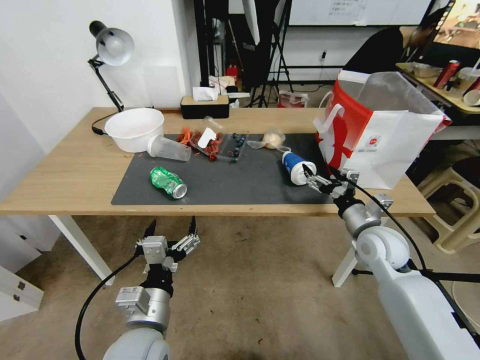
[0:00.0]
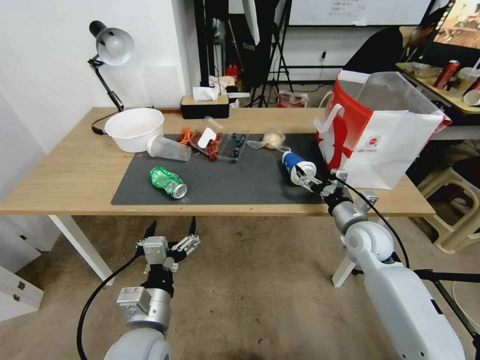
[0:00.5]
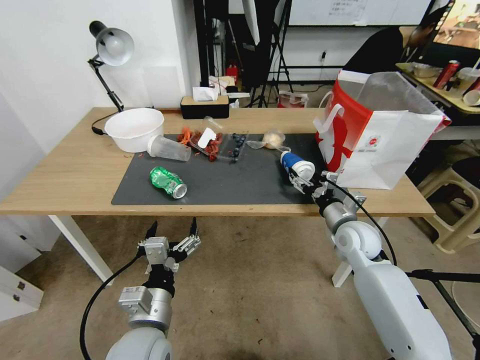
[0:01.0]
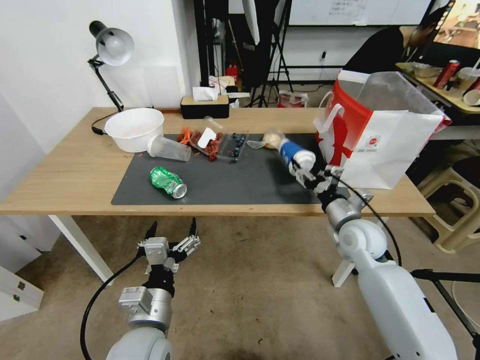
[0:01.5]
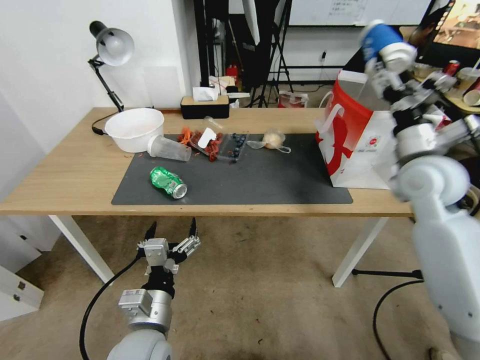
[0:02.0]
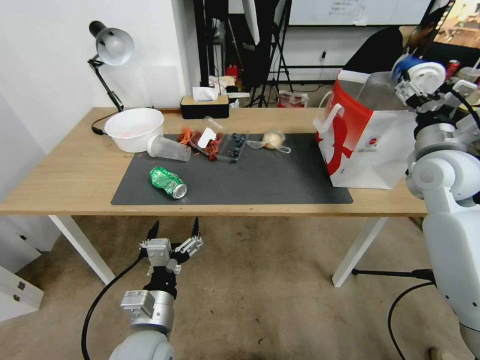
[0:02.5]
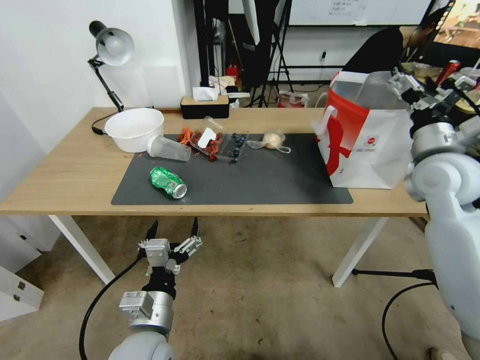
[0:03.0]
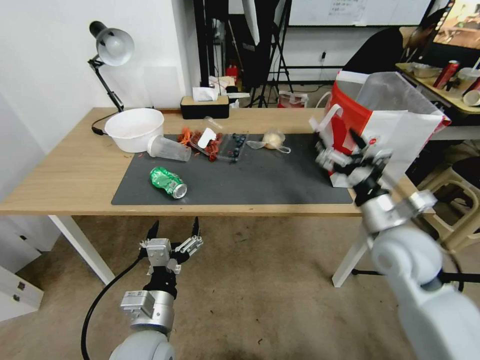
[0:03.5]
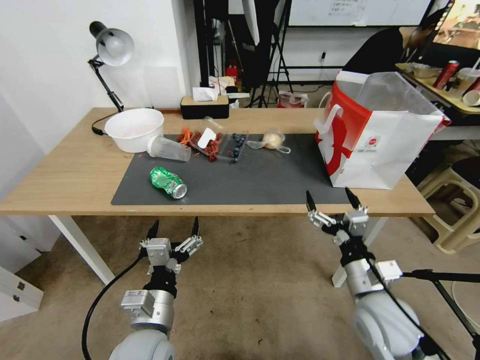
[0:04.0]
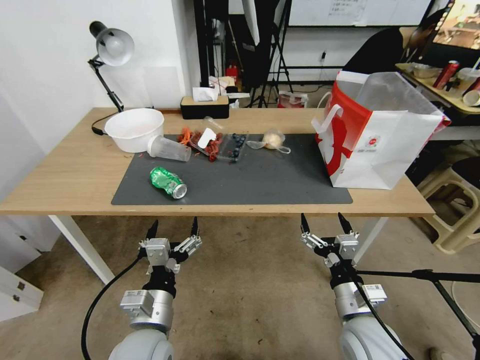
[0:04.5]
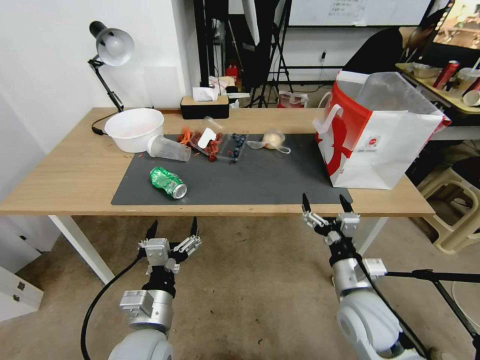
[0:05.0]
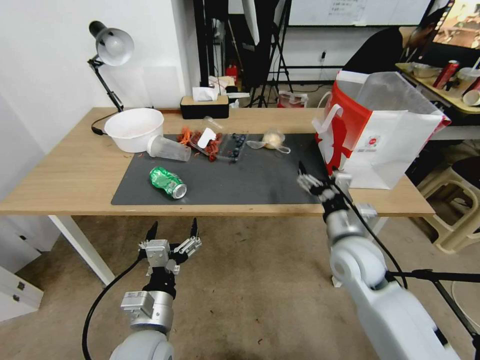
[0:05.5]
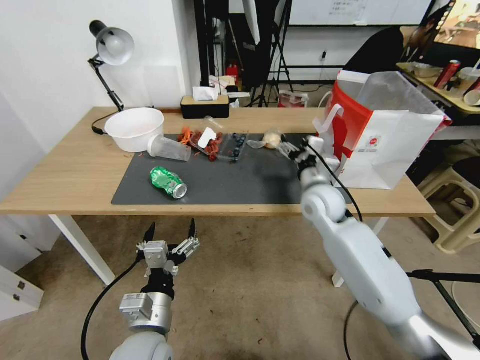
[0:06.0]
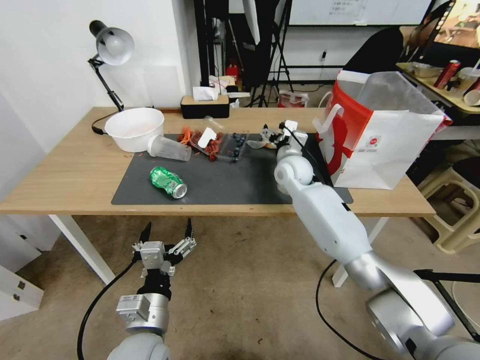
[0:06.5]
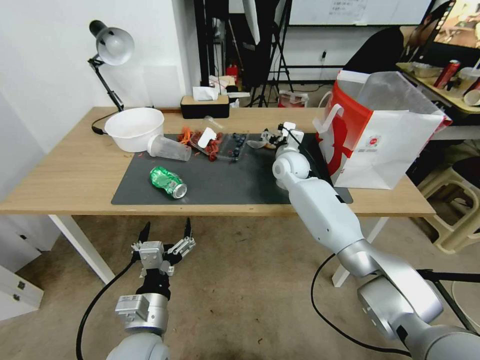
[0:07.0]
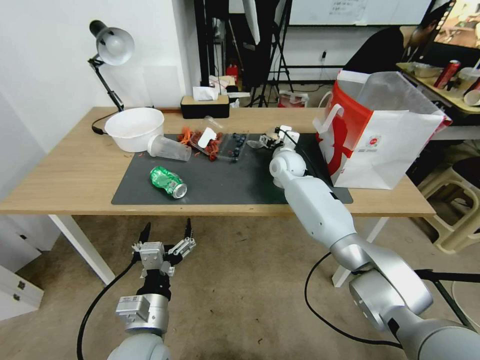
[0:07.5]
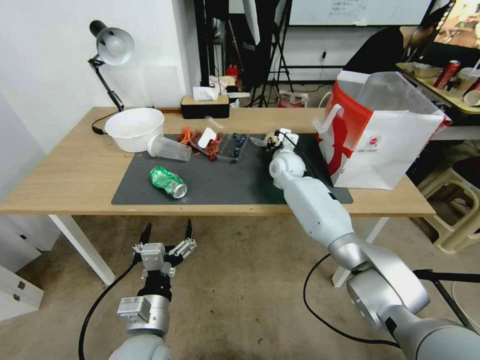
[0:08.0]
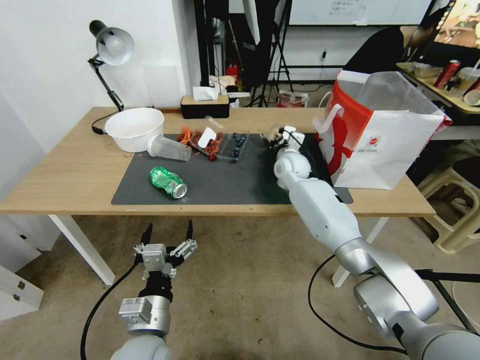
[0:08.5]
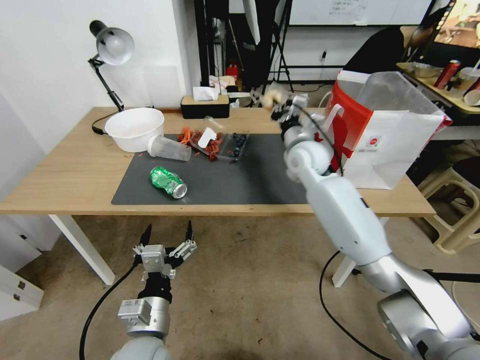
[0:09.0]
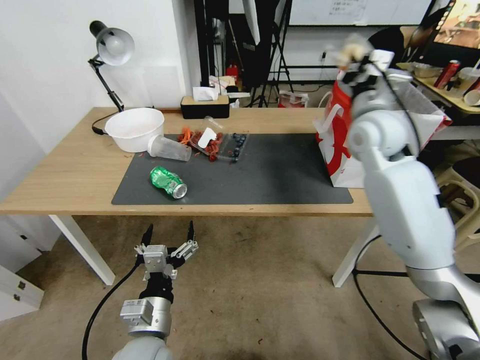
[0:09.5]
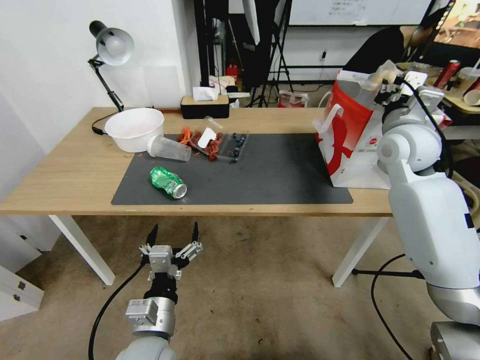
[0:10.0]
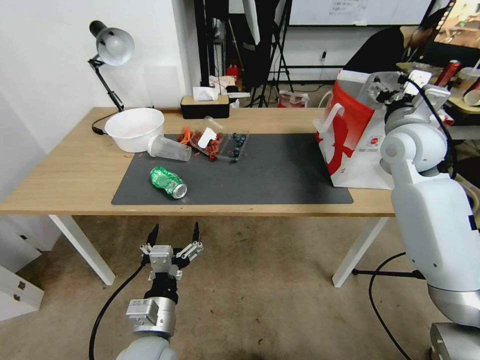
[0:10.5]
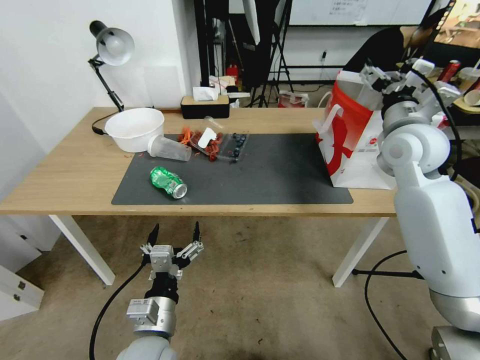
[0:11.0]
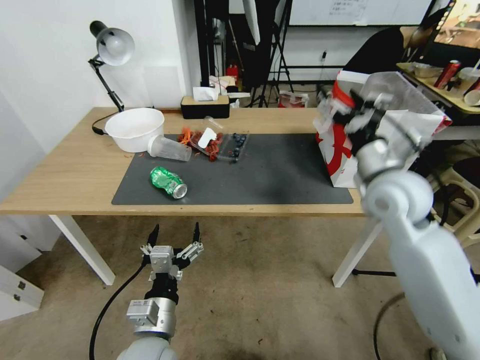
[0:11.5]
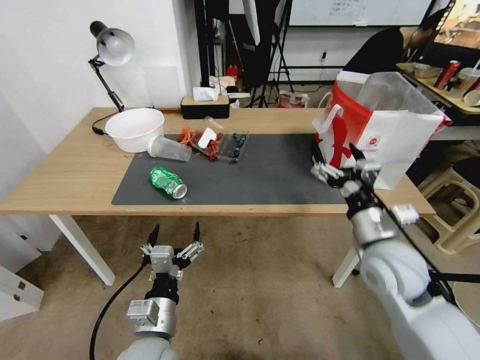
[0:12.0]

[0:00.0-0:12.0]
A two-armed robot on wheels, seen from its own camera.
0:00.0 to 0:02.0: The right gripper moves upward, roughly 15 cm, and closes.
0:02.0 to 0:04.0: The right gripper moves backward and downward, about 25 cm, and opens its fingers.
0:04.0 to 0:06.0: The right gripper travels forward by roughly 25 cm.
0:06.0 to 0:08.0: The right gripper heads forward, covering about 15 cm, and closes its fingers.
0:08.0 to 0:10.0: The right gripper moves to the right, upward and backward, roughly 30 cm.
0:10.0 to 0:12.0: The right gripper goes approximately 25 cm backward and downward, and opens.

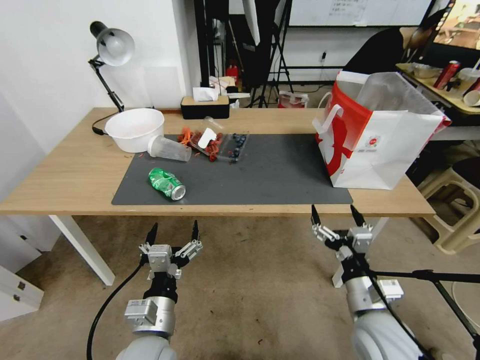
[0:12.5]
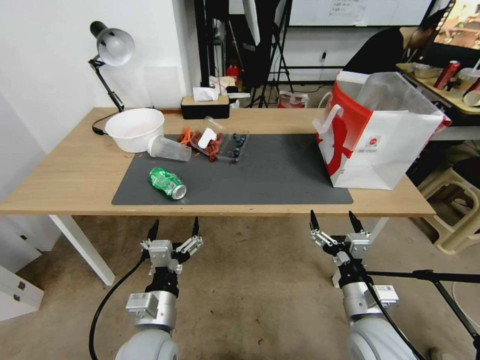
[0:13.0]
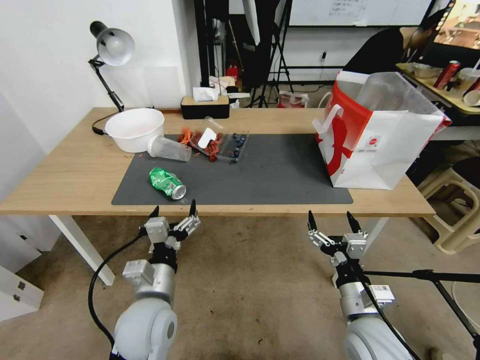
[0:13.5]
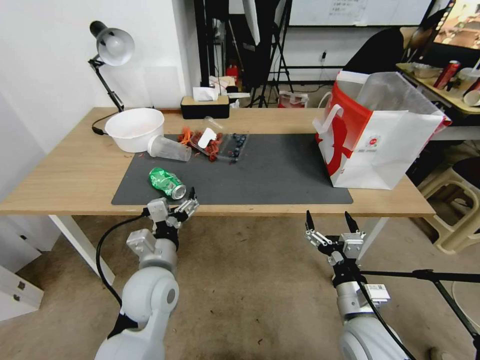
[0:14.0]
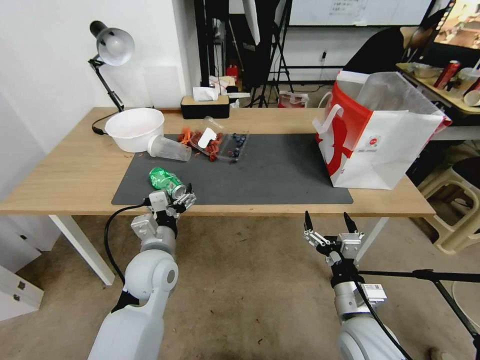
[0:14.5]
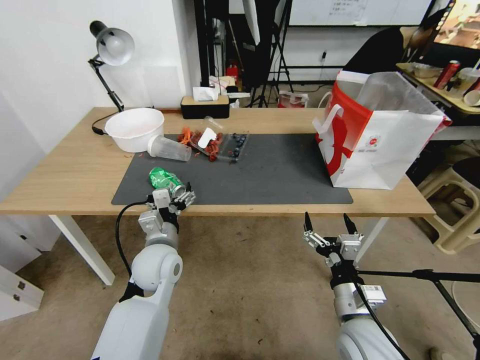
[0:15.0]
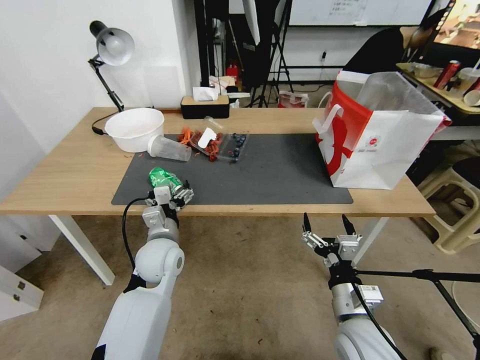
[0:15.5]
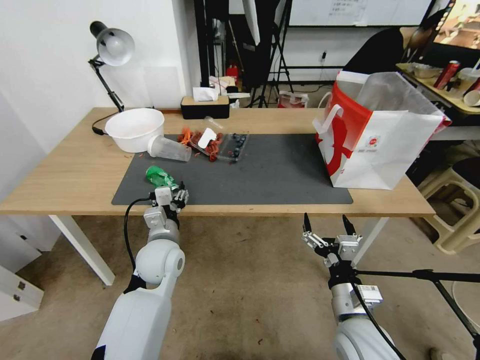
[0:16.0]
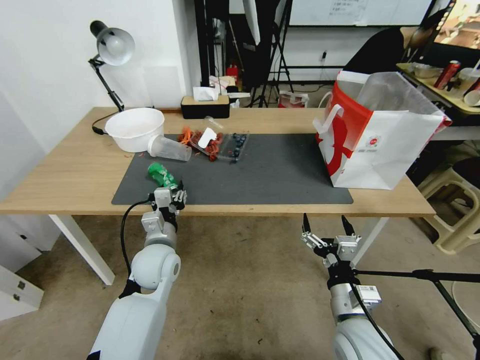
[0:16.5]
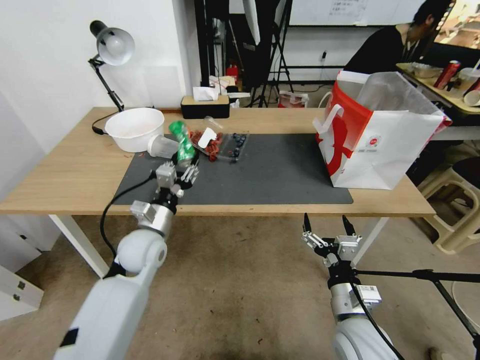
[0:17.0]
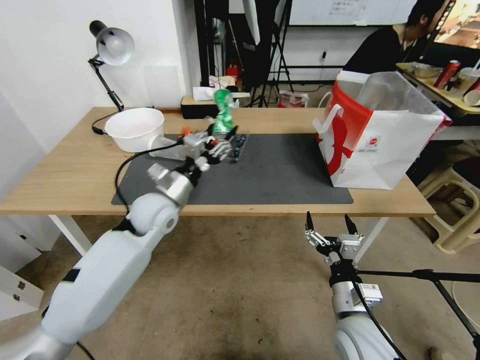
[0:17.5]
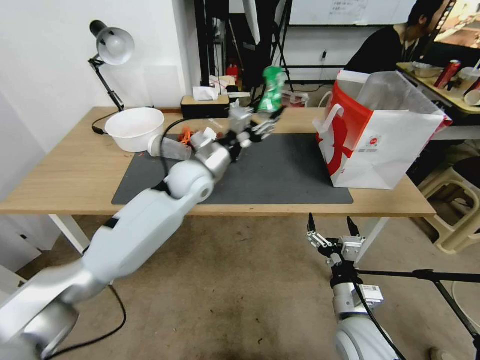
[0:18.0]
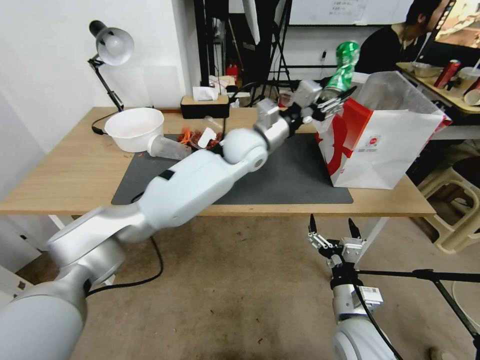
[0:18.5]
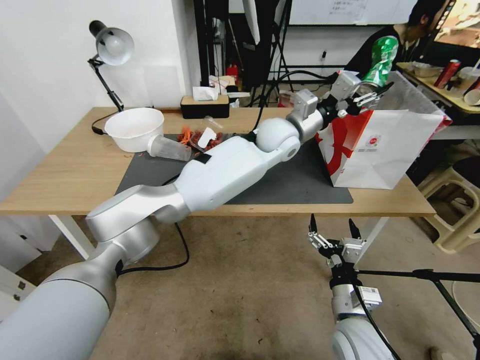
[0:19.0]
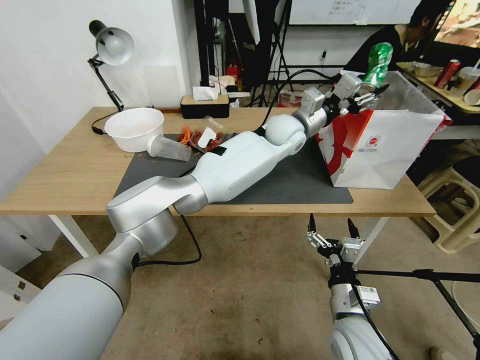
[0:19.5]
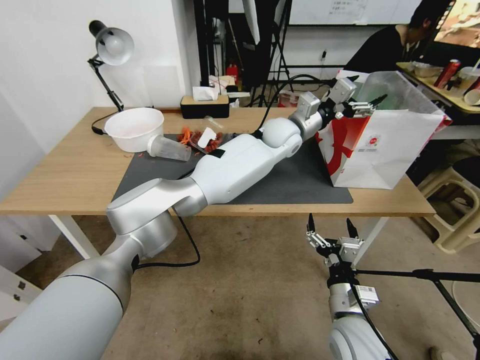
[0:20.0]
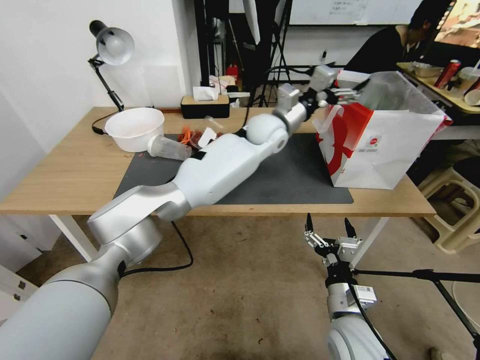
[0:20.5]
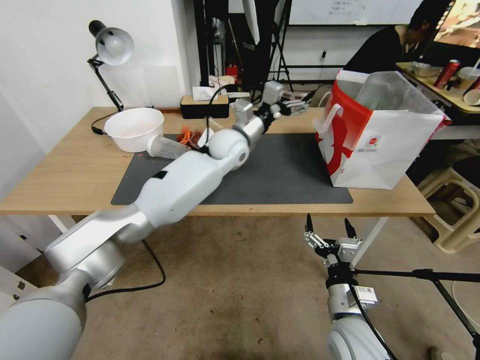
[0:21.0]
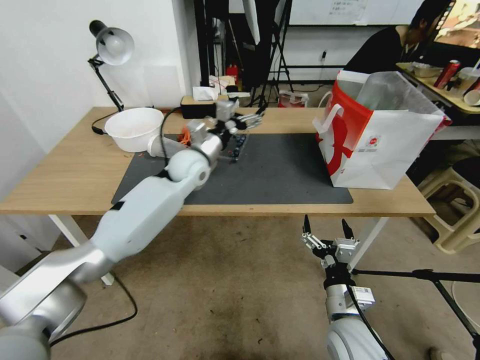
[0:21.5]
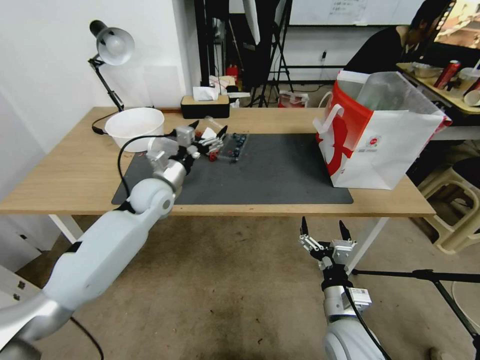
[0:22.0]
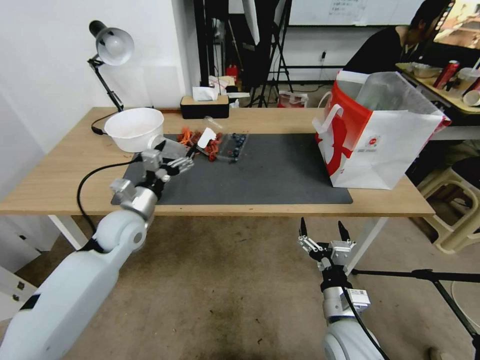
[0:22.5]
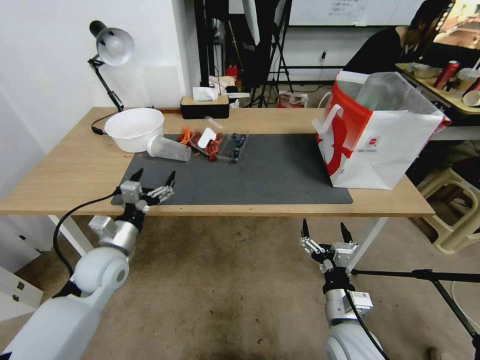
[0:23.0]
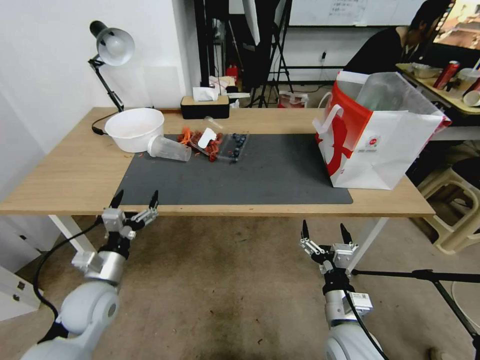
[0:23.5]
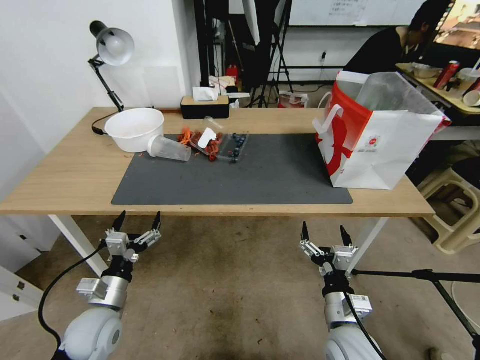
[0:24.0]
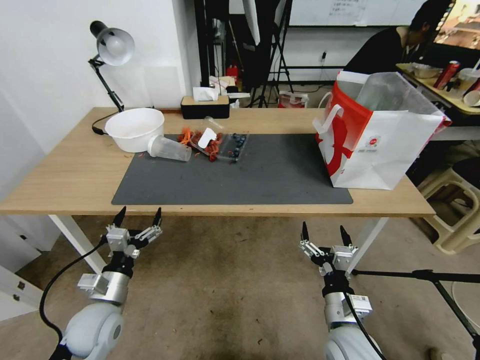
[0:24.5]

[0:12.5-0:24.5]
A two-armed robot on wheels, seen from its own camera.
0:12.5 to 0:14.5: The left gripper moves forward, about 15 cm.
0:14.5 to 0:16.5: The left gripper closes its fingers.
0:16.5 to 0:18.5: The left gripper moves to the right, upward and forward, some 35 cm.
0:18.5 to 0:20.5: The left gripper is displaced forward by roughly 5 cm, and opens up.
0:20.5 to 0:22.5: The left gripper moves to the left, backward and downward, some 40 cm.
0:22.5 to 0:24.5: The left gripper goes approximately 20 cm backward and downward.

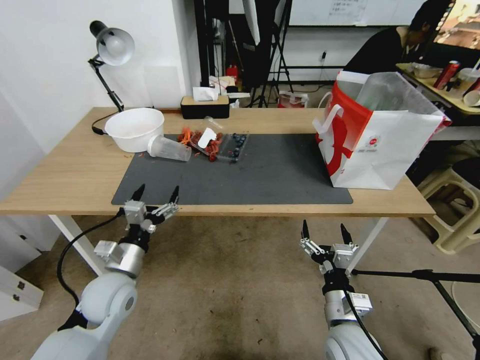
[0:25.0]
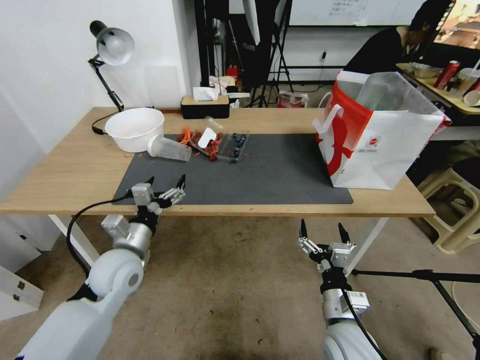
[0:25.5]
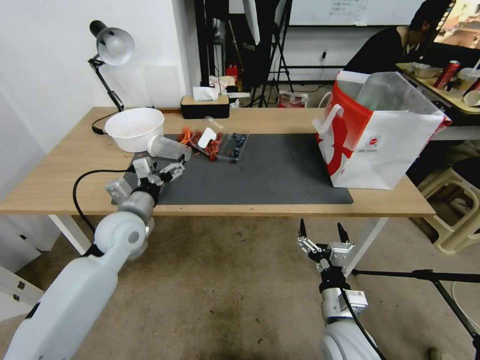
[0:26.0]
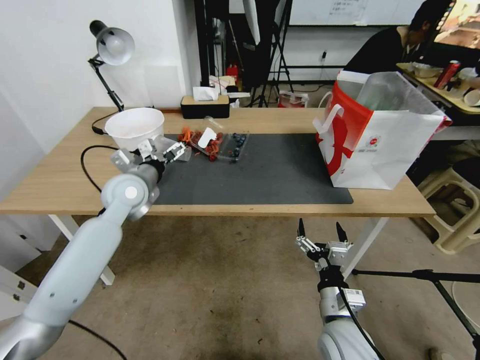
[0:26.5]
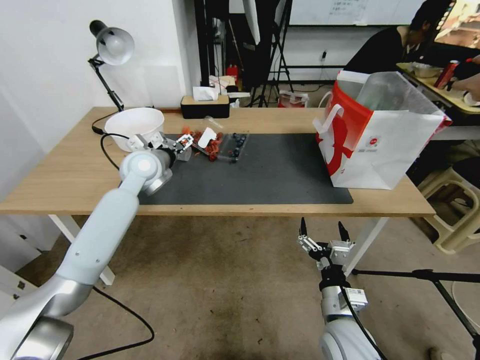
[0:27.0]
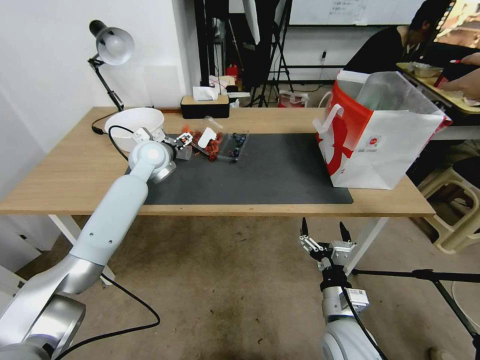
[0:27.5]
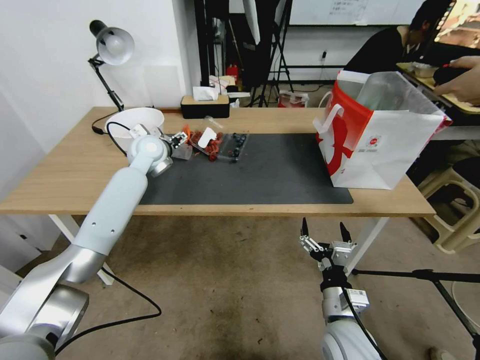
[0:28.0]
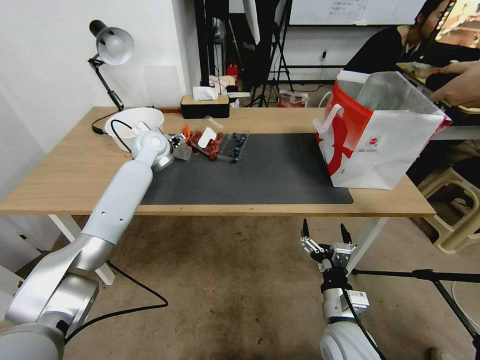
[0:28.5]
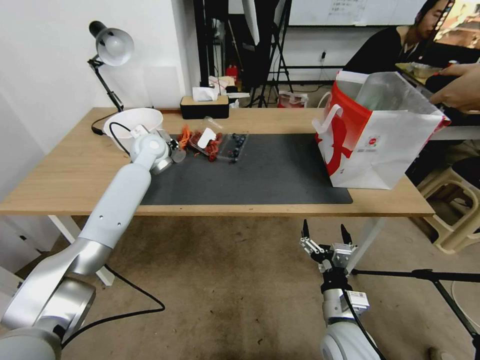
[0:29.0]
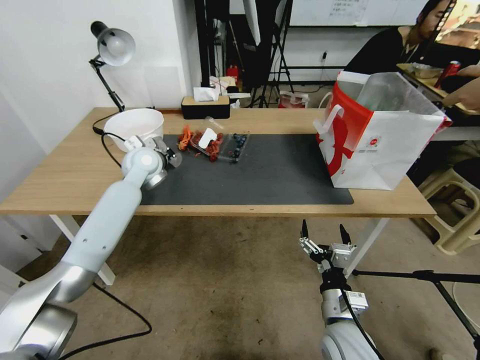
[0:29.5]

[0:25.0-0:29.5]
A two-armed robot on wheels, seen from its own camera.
0:25.0 to 0:27.0: The left gripper moves forward and upward, about 30 cm.
0:27.0 to 0:29.5: The left gripper closes up.
